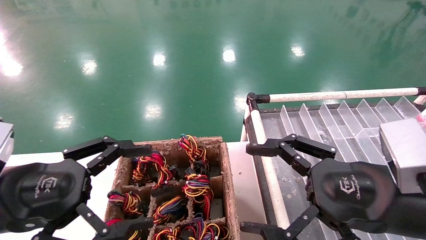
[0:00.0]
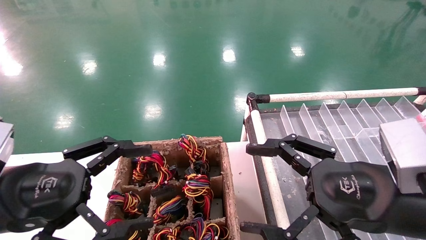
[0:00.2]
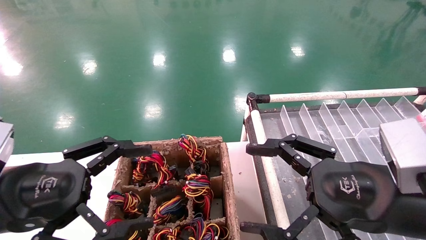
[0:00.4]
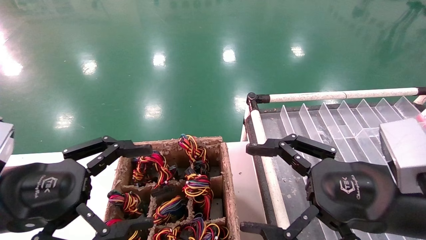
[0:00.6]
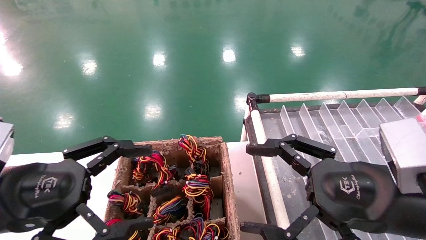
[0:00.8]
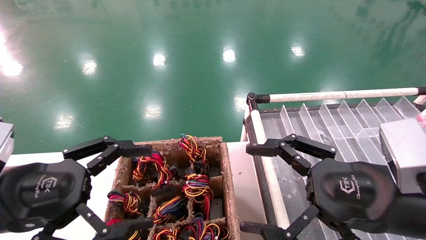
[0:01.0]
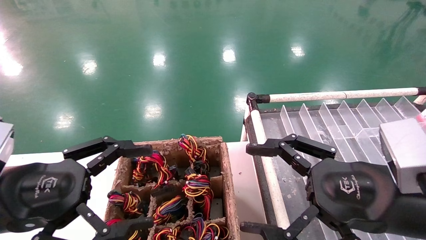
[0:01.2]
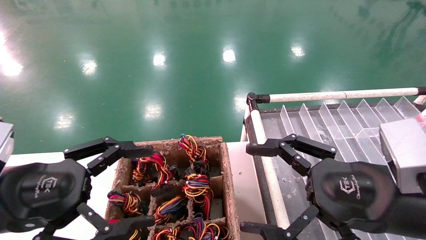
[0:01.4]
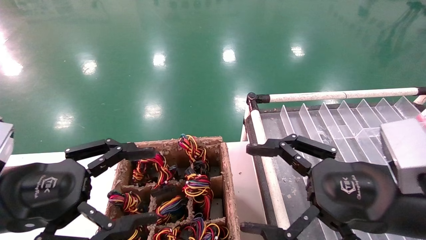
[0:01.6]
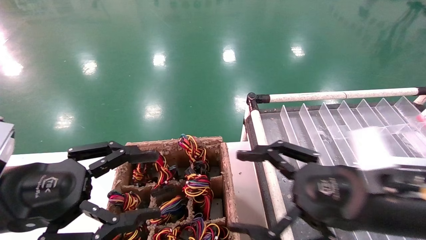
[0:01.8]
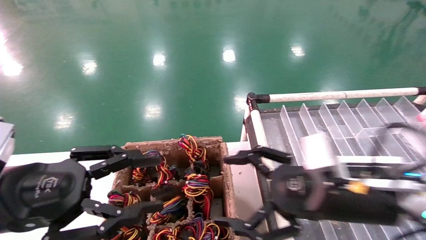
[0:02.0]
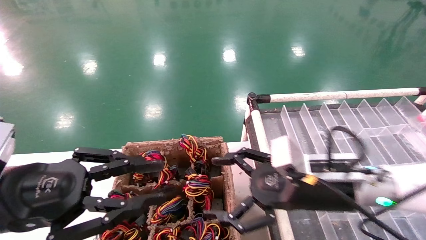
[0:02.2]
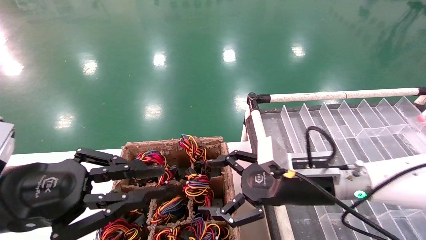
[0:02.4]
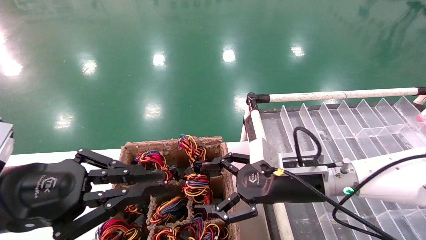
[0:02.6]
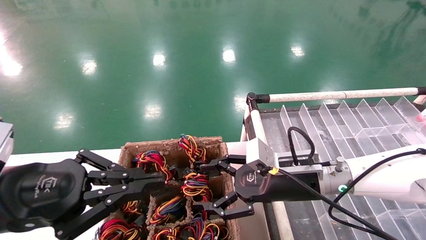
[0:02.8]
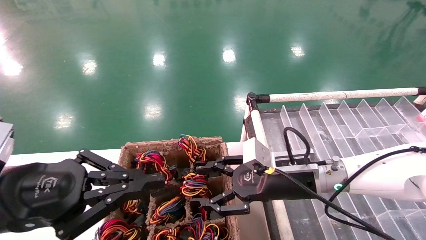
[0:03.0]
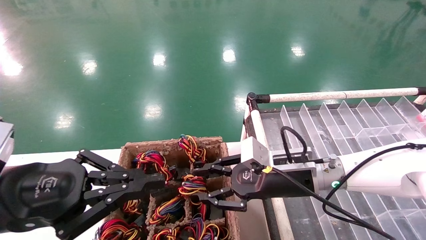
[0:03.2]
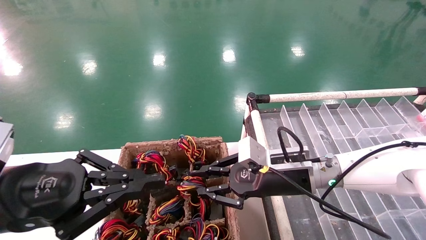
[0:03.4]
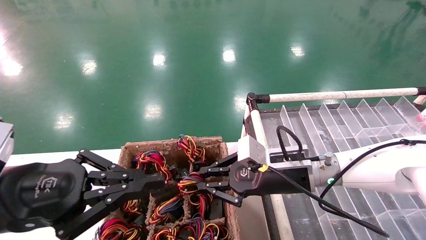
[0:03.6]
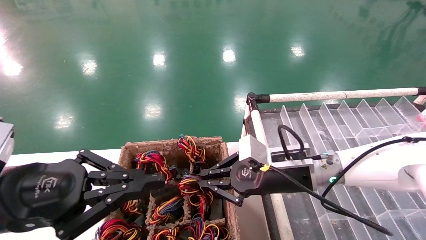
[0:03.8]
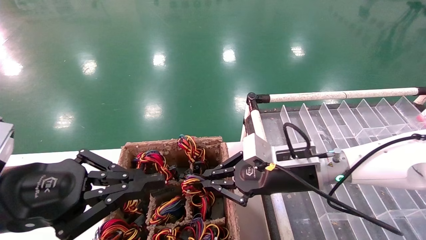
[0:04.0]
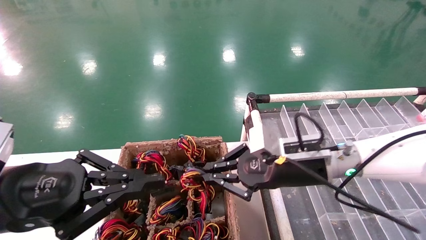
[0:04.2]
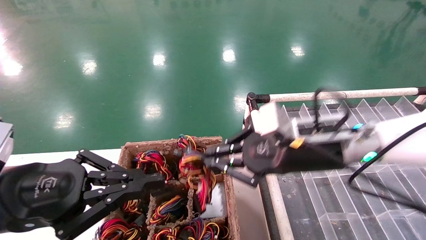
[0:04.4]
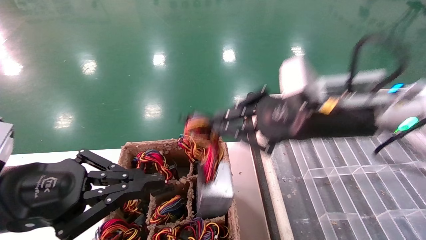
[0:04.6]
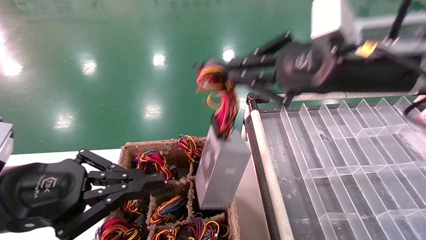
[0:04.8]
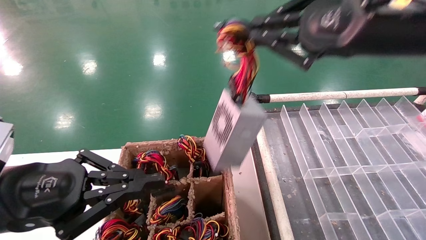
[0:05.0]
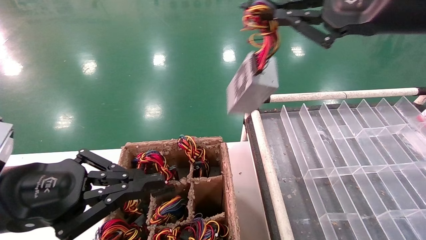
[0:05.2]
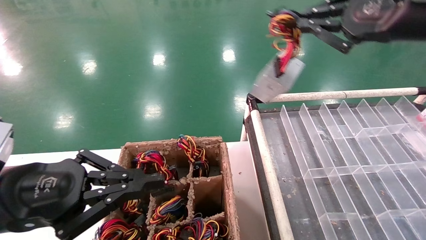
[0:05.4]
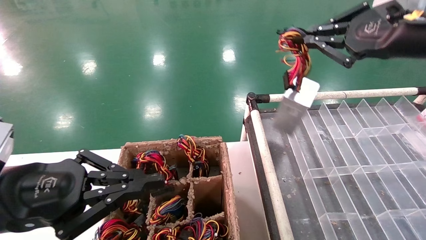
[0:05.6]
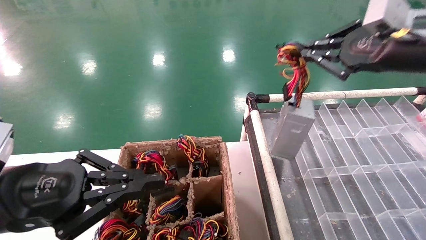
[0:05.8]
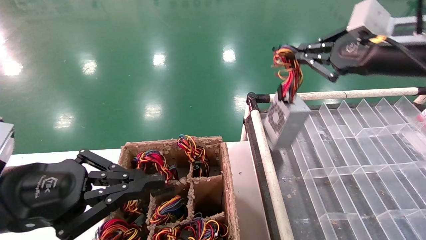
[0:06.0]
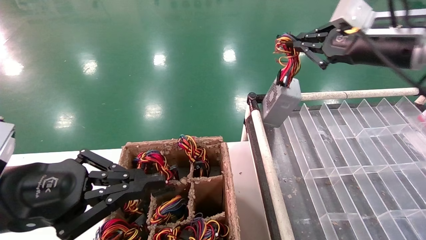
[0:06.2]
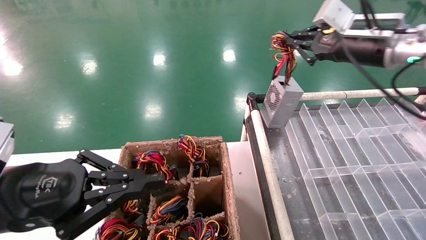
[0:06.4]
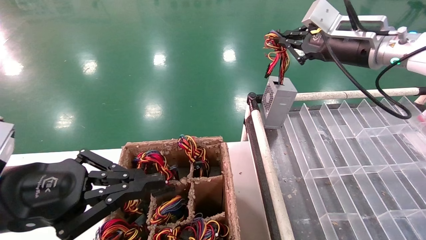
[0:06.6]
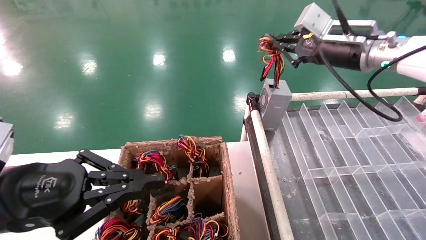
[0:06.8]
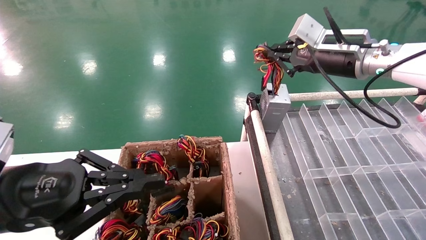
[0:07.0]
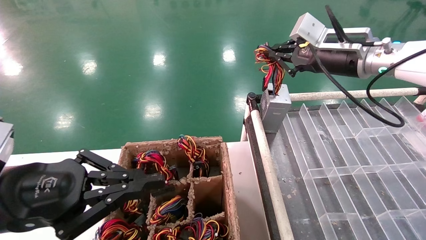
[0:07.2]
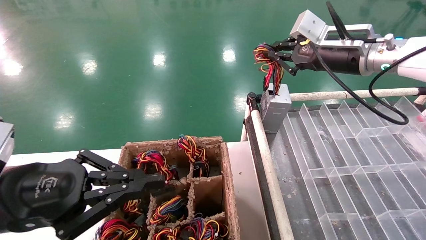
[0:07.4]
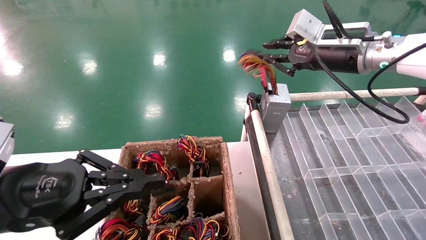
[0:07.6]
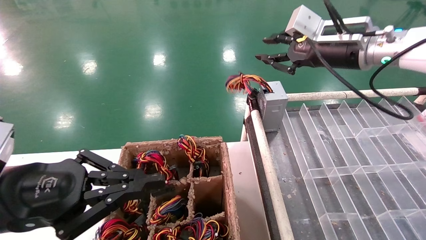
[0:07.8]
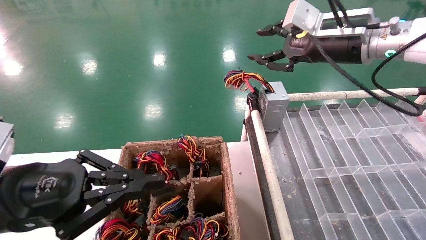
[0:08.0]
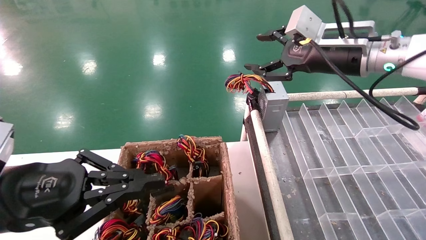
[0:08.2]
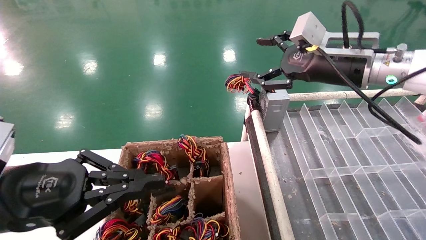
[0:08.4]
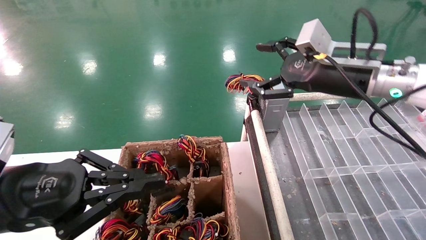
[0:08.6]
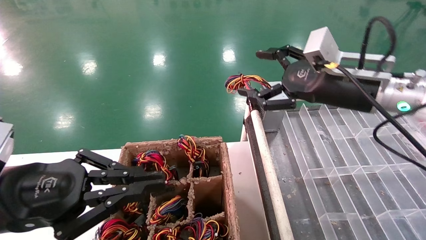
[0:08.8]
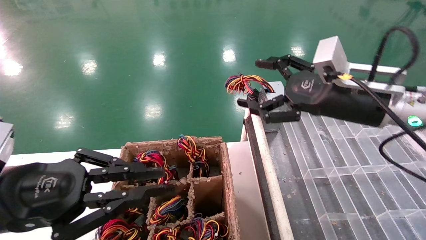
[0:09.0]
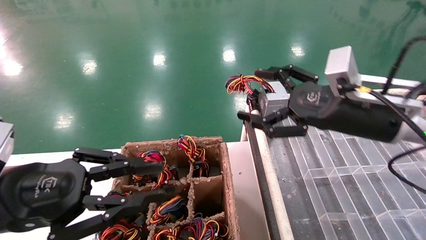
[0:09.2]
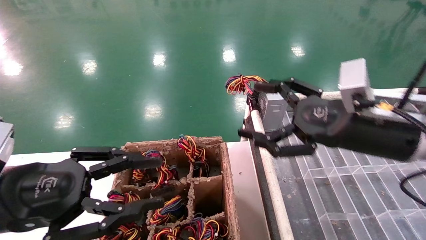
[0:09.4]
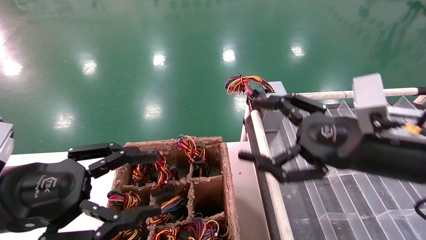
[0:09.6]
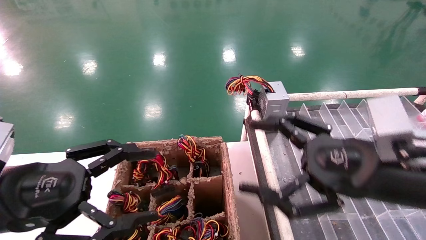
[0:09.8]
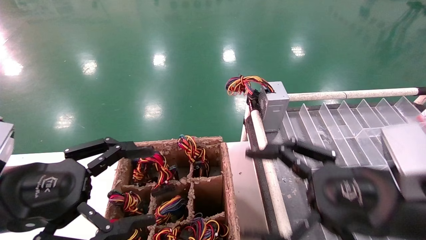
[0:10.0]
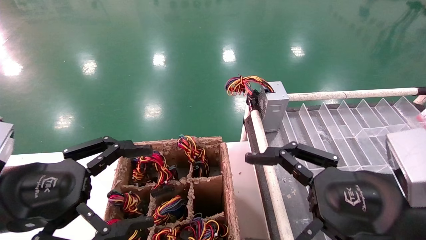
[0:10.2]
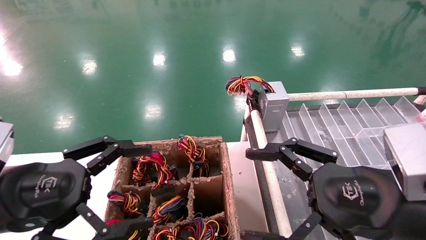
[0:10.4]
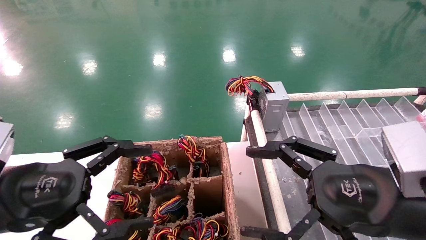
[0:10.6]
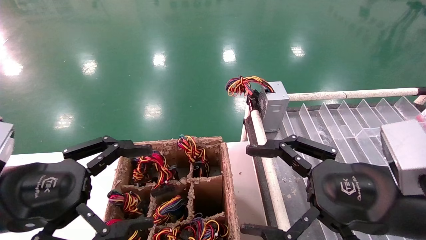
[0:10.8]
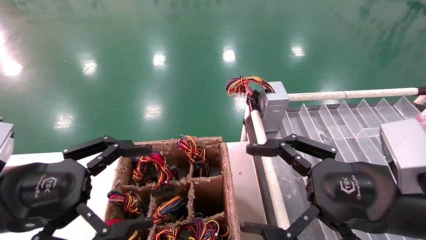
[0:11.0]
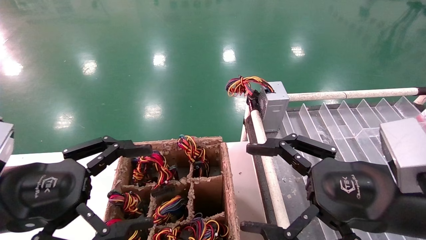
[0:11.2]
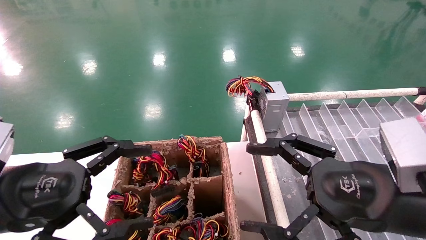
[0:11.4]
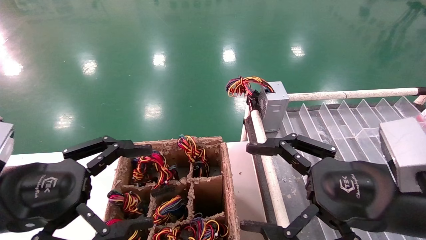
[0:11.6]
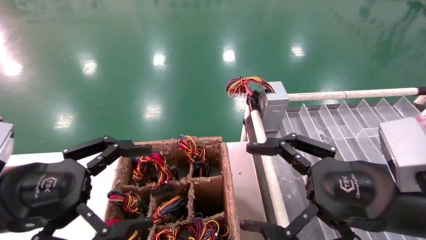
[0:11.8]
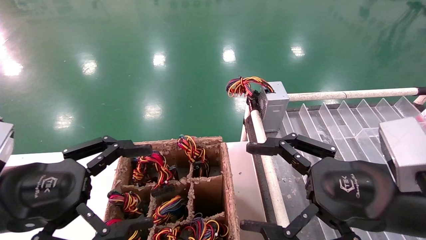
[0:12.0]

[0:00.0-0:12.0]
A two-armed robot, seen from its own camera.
Step, 0:02.0 to 0:04.0: Grab the main unit power supply from the containment box.
Step, 0:04.2 to 0:07.4: Place the main unit power supply in the designated area.
0:00.0 to 0:01.6: Both grippers stay about where they are.
0:01.6 to 0:03.0: The left gripper closes its fingers. The right gripper goes some 15 cm forward, to the left and downward.
0:03.0 to 0:04.4: The right gripper moves upward, approximately 10 cm, and closes.
0:04.4 to 0:06.0: The right gripper is displaced to the right and upward by about 20 cm.
0:06.0 to 0:07.6: The right gripper is displaced forward and to the left by about 10 cm.
0:07.6 to 0:09.0: The right gripper shifts about 10 cm downward and backward, and opens its fingers.
0:09.0 to 0:10.4: The right gripper goes approximately 15 cm backward and downward; the left gripper opens its fingers.
0:10.4 to 0:12.0: Both grippers stay put.

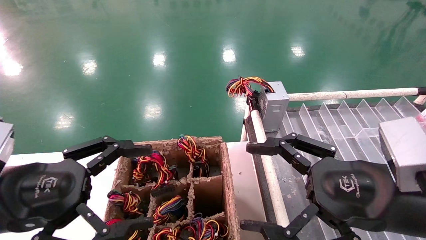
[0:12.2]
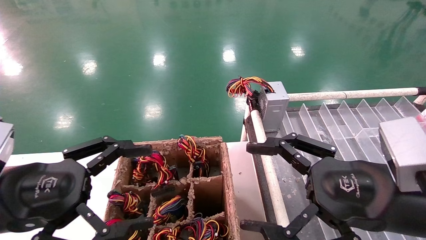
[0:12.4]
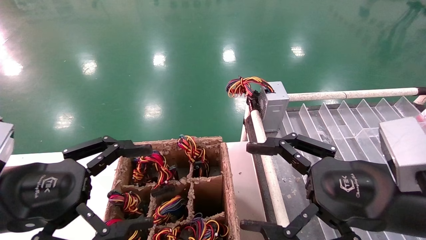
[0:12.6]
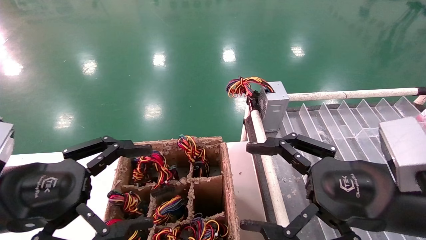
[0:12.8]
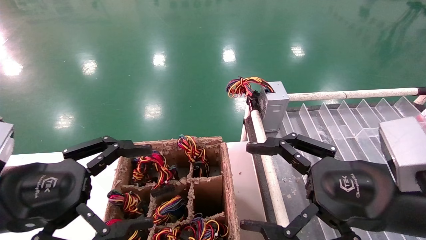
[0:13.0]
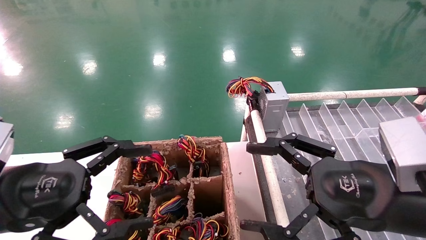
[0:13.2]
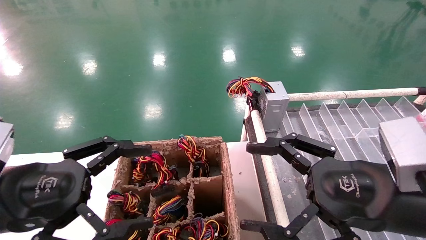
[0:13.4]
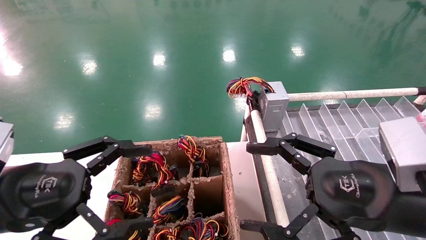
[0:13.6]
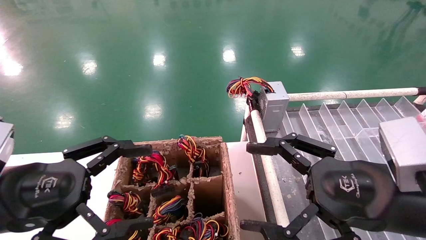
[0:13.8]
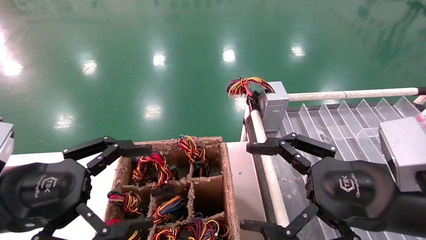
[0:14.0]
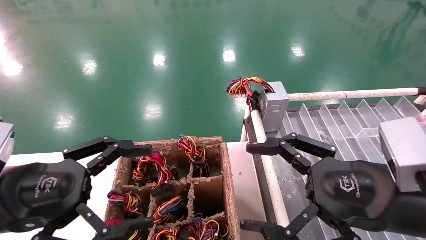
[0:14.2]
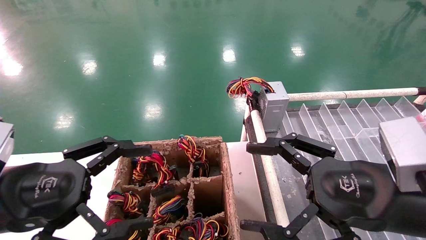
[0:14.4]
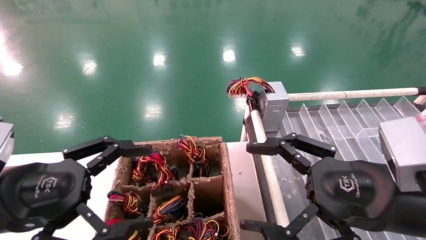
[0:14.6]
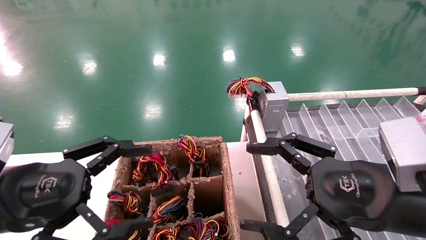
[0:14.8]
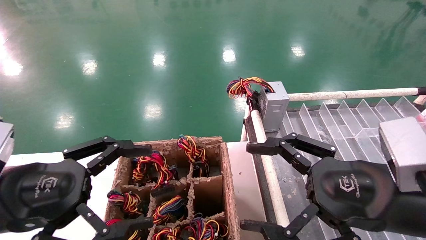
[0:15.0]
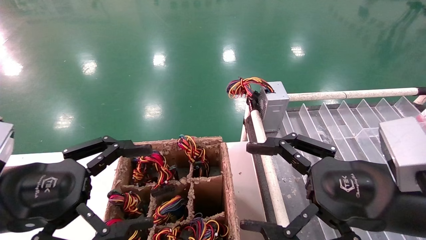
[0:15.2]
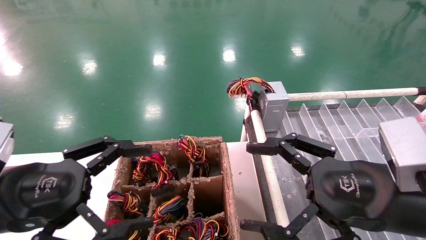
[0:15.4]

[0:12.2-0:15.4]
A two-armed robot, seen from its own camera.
0:12.2 to 0:15.4: Both grippers stay about where they are.
